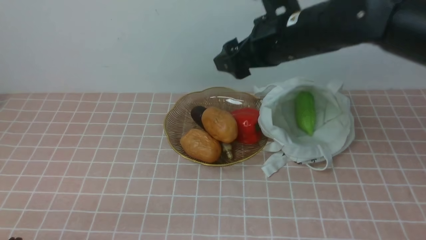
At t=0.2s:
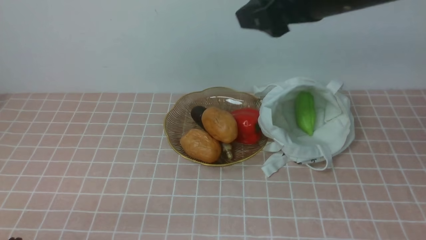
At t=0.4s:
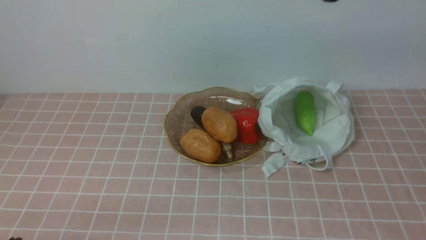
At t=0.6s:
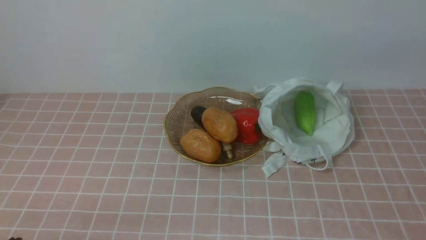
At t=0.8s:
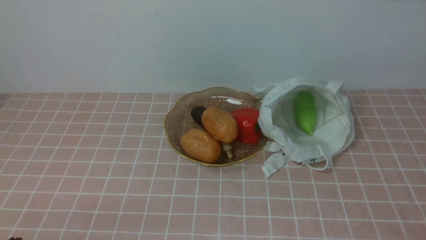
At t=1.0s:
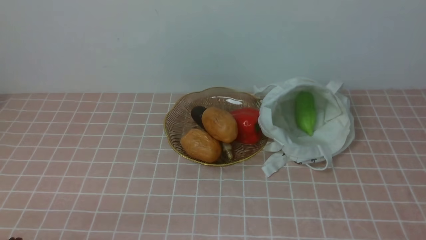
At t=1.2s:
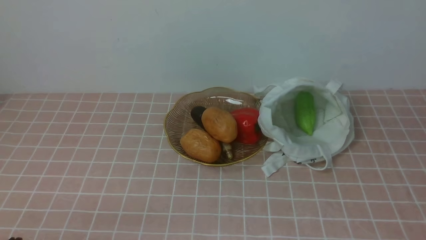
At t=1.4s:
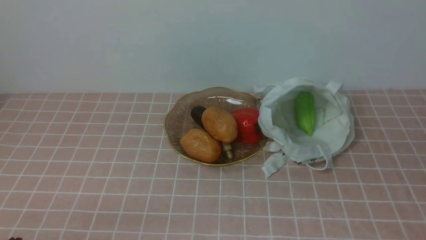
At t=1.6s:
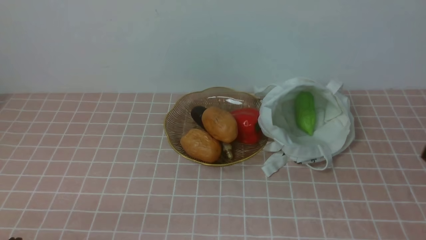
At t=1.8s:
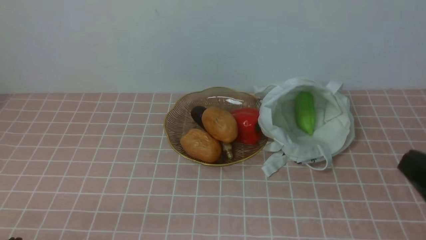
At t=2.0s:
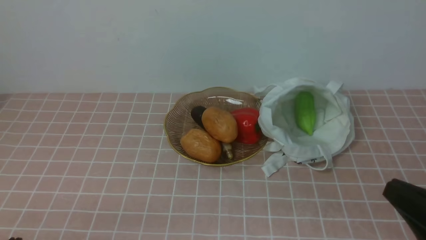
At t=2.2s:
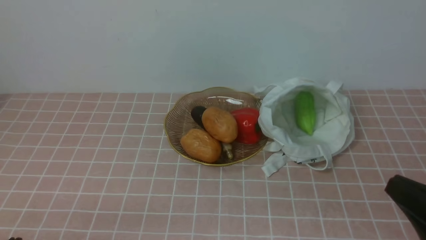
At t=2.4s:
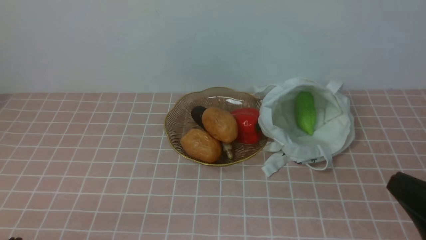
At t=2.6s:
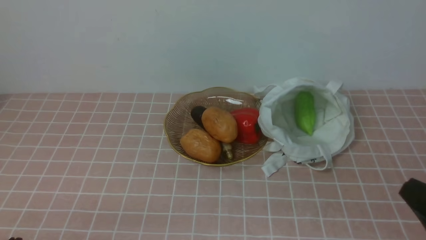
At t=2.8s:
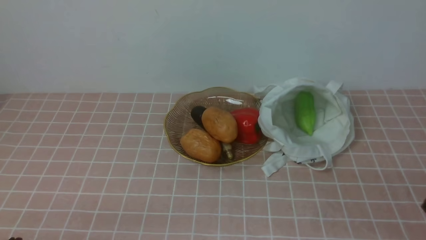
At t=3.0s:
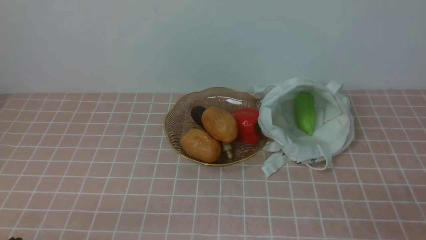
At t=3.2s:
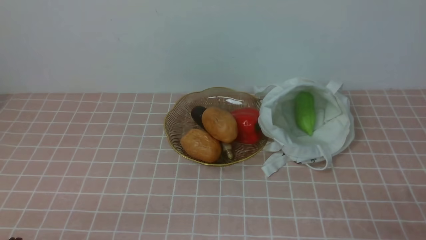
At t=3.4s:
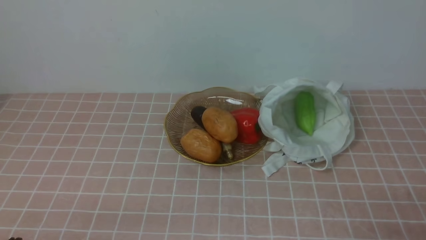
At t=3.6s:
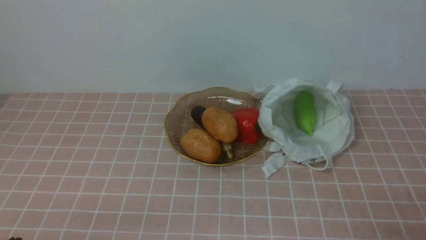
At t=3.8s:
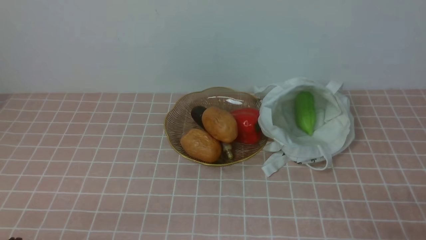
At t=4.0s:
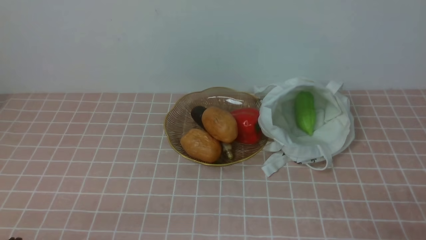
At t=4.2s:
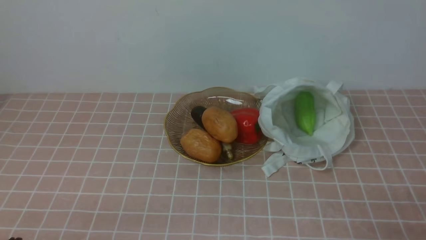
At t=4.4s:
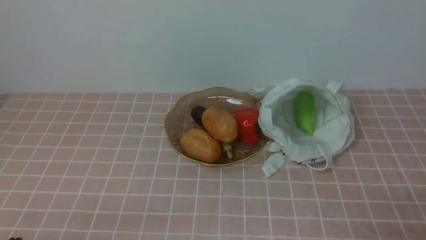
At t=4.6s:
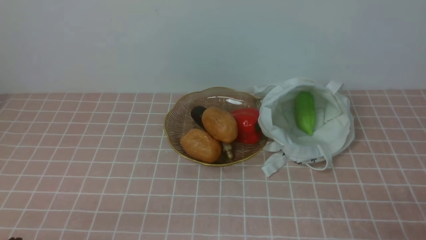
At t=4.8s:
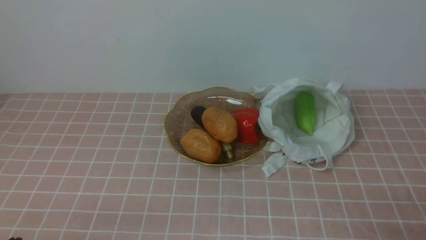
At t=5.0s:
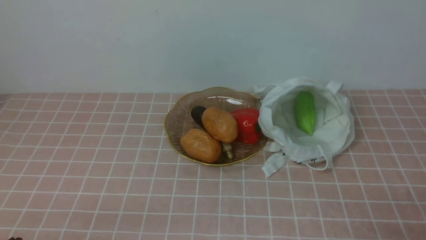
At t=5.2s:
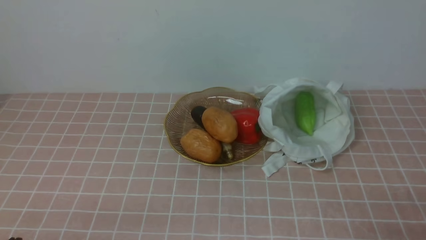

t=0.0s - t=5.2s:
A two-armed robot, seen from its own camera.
Task of the whole recording: take vegetables from bag on pink coffee tablecloth place on plate.
t=0.0s - t=1.8s: The right gripper shifts roughly 35 cm backward and to the right, and closes its fingers.
t=1.8s - t=3.4s: The right gripper shifts some 15 cm downward.
t=3.4s - t=5.2s: Neither gripper changes place.

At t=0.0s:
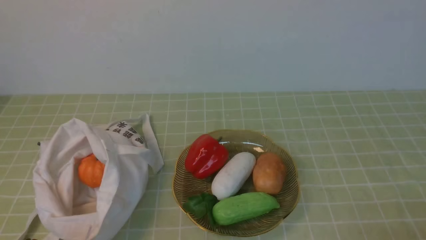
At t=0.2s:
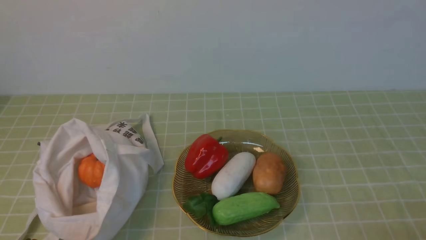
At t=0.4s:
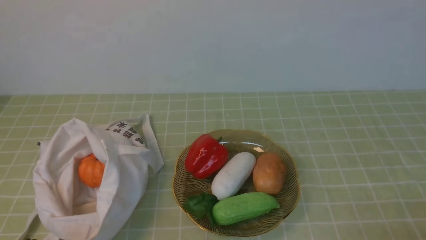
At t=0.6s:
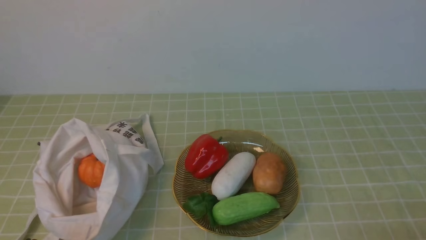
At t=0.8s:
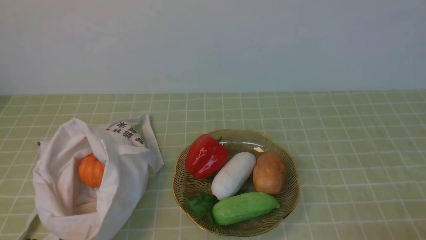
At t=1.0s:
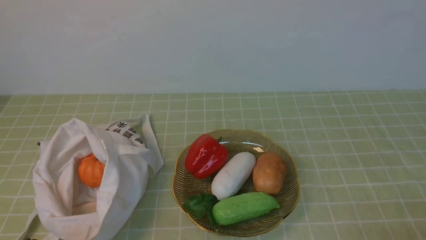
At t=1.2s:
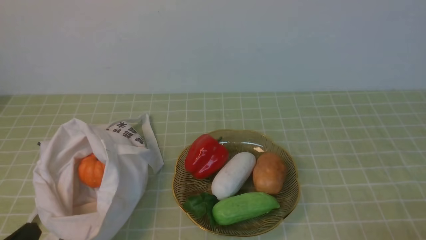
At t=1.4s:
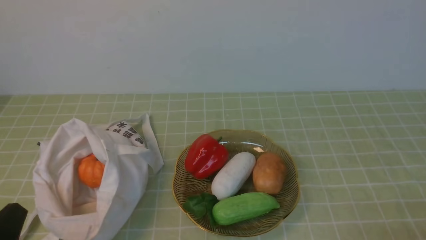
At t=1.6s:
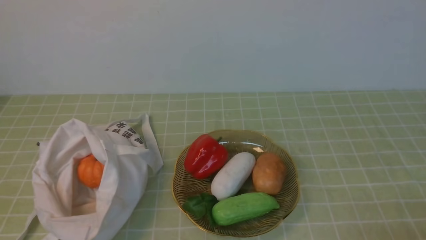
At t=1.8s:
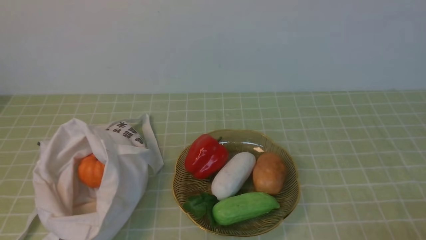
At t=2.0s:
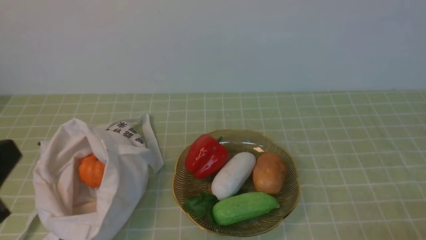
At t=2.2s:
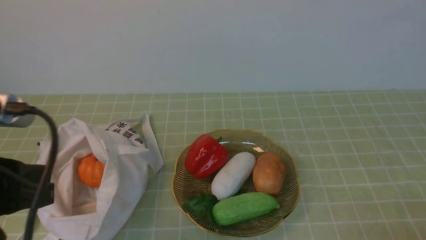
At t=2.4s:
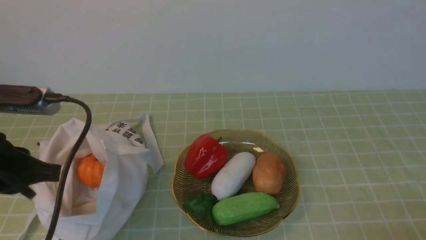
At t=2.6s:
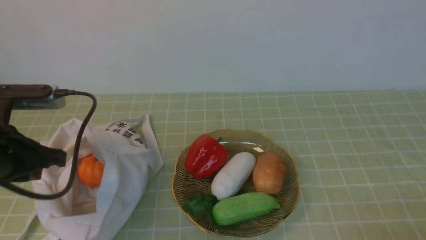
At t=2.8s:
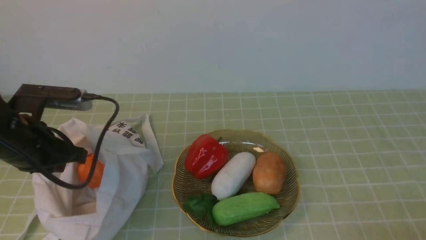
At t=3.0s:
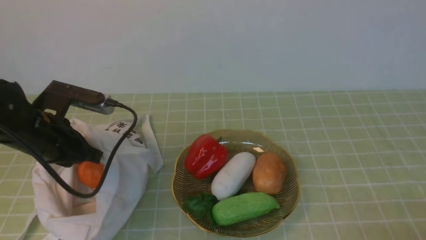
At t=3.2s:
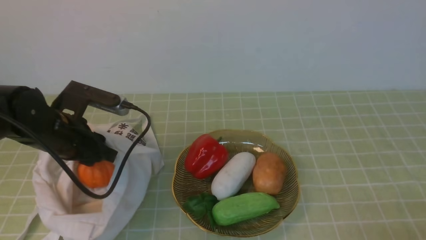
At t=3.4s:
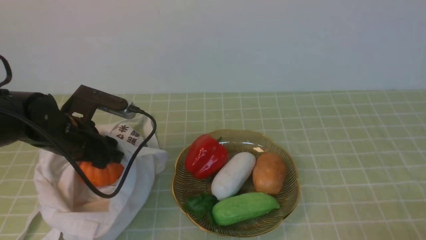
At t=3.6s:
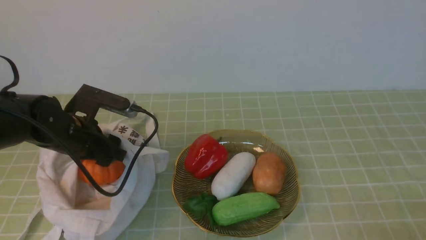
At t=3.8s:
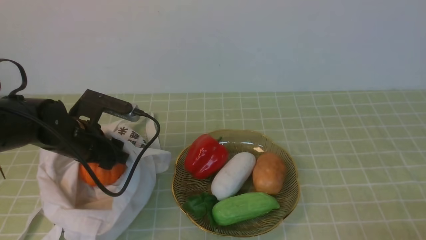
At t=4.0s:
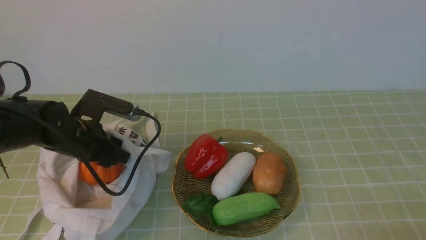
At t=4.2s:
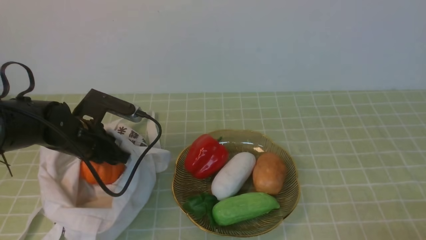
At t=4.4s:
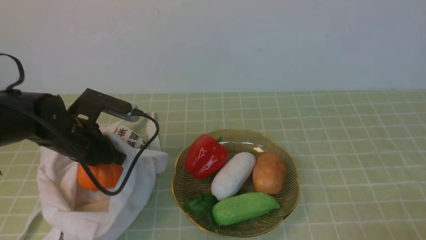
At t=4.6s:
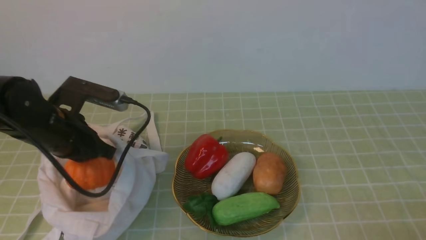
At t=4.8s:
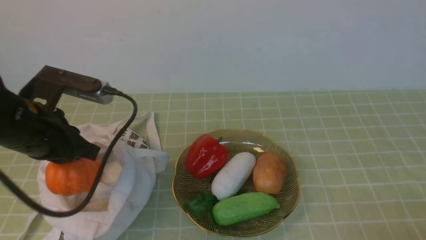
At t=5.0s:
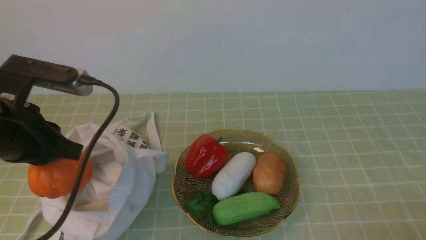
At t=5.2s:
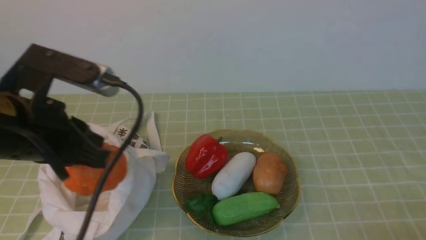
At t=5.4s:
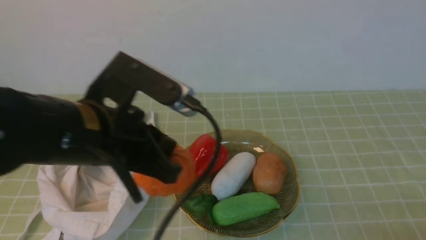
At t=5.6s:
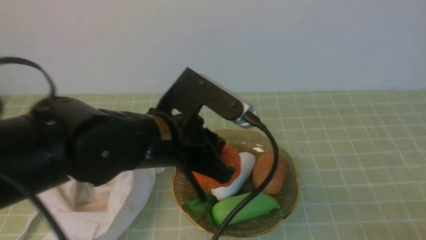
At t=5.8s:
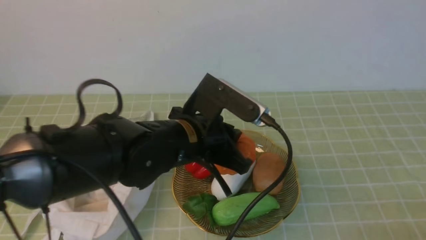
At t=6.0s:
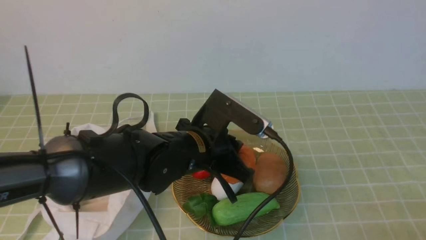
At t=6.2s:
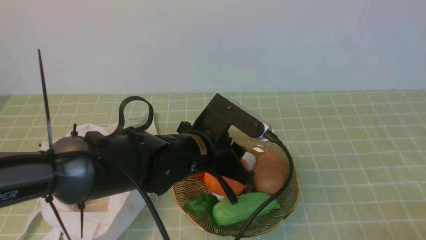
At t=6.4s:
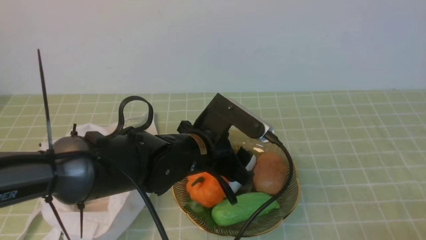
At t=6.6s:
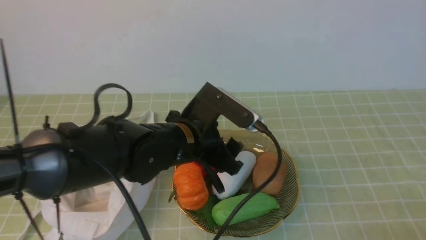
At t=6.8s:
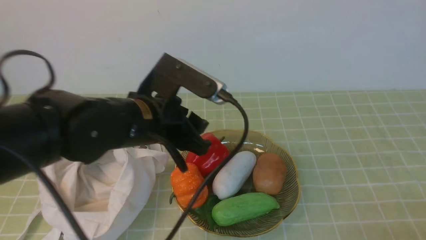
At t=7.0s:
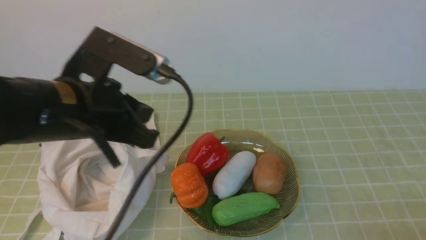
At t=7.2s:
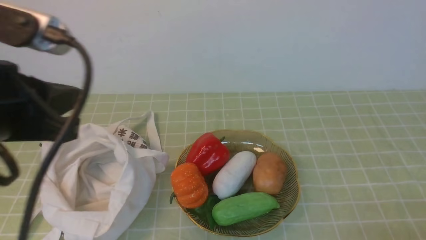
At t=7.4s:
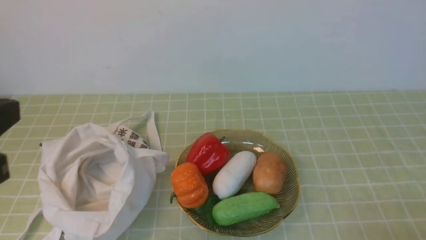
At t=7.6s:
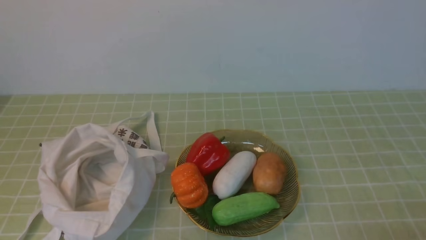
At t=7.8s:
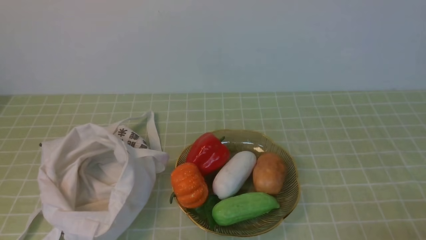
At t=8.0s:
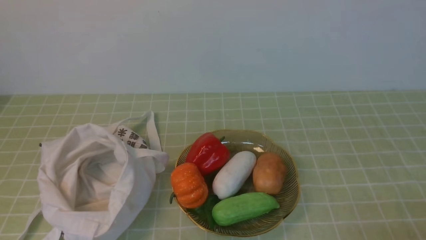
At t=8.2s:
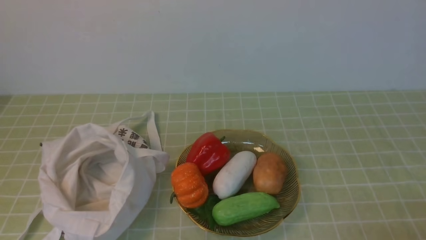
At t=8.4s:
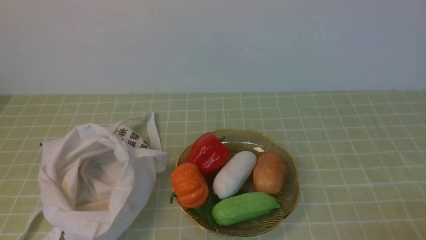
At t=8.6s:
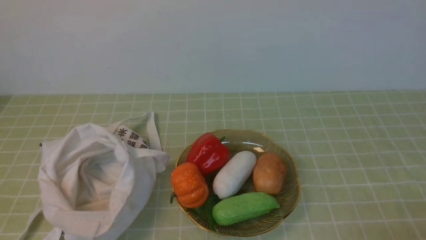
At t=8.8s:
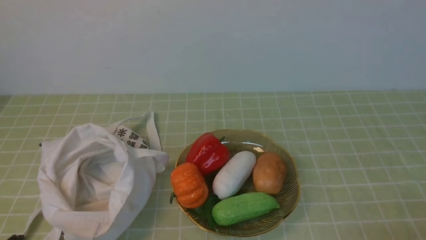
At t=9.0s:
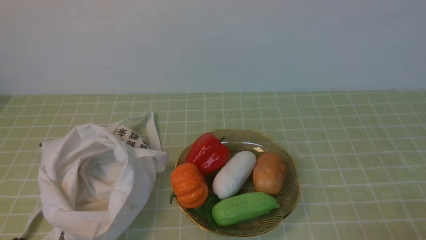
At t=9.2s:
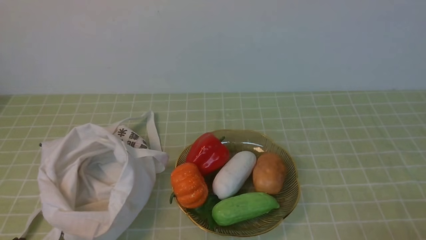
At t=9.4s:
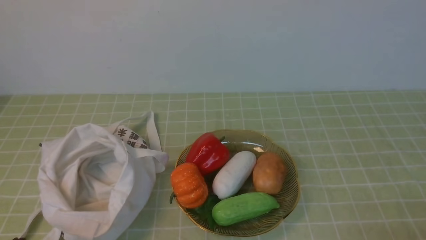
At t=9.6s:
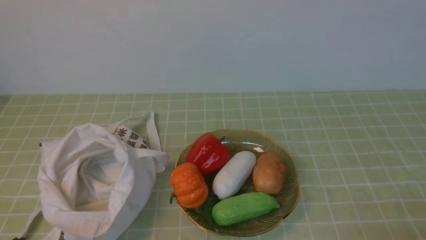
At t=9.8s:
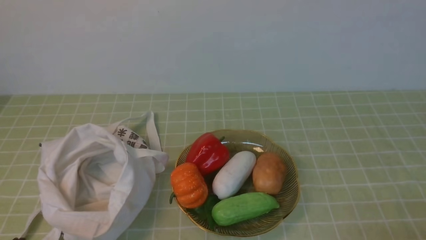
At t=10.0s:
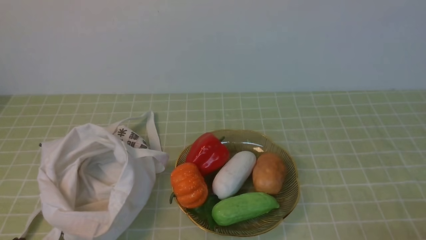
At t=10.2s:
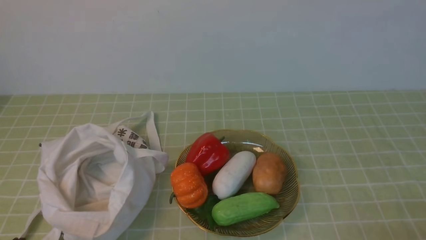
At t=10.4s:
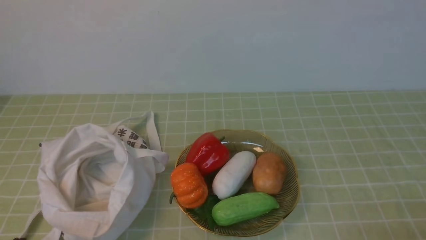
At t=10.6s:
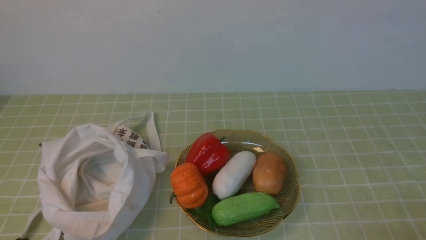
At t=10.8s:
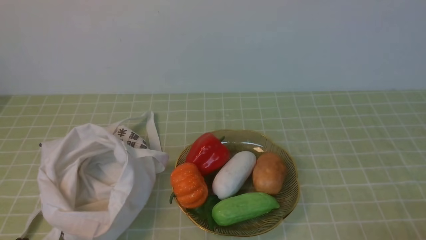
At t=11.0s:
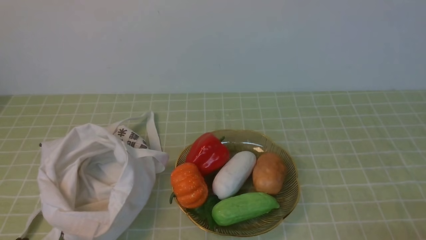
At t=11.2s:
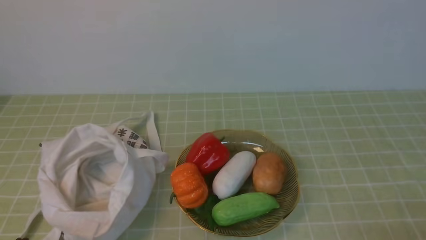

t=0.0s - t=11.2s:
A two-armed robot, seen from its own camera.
Task of the whole recording: take vegetables from bag on green coffee tablecloth place on plate.
Step, t=0.0s - t=4.2s: Grasp the pumpkin with left gripper.
Step, t=4.4s - t=6.4s: Place the pumpkin on the plate with left gripper.
t=1.6s - t=3.2s: The left gripper moves forward, approximately 25 cm, and opens.
t=3.2s - t=4.8s: The left gripper ends up about 5 cm from where it was, and closes.
t=4.8s - t=6.4s: The left gripper is displaced to the right by roughly 20 cm, and opens its fingers.
t=6.4s - t=8.0s: The left gripper moves backward, to the left and upward, roughly 35 cm, and closes.
t=9.6s - t=11.2s: Neither gripper changes place.
